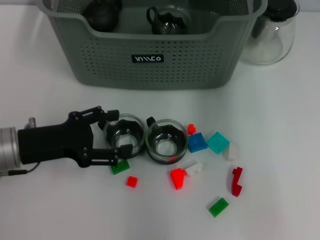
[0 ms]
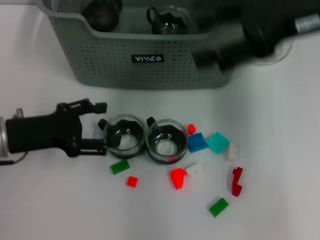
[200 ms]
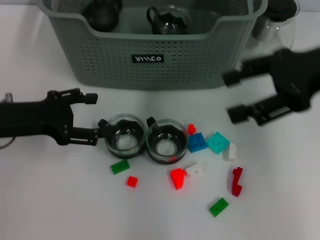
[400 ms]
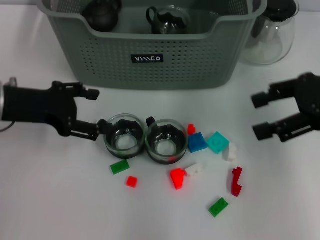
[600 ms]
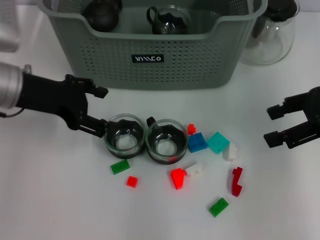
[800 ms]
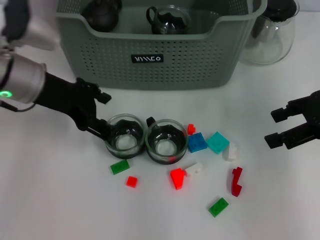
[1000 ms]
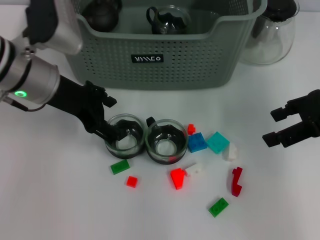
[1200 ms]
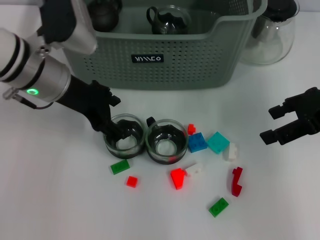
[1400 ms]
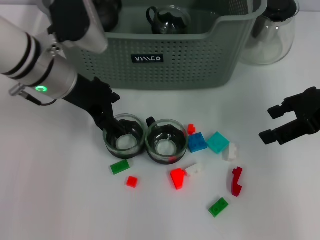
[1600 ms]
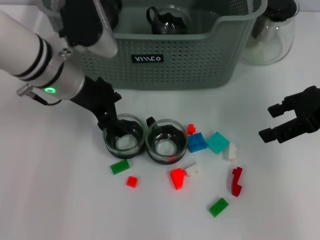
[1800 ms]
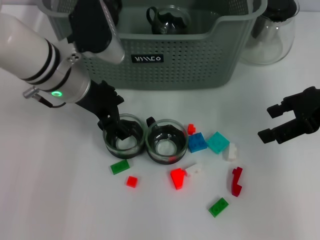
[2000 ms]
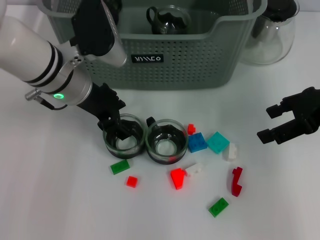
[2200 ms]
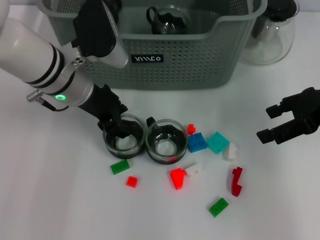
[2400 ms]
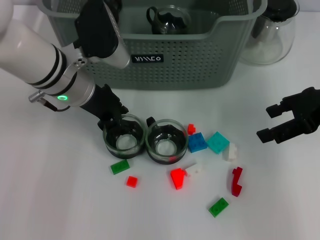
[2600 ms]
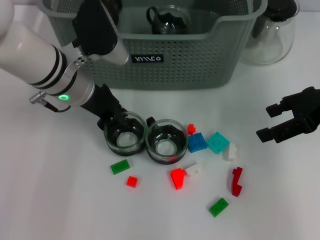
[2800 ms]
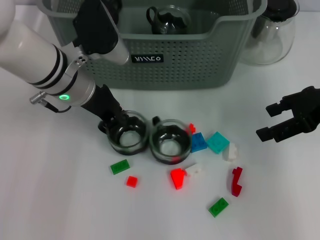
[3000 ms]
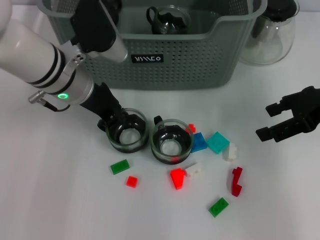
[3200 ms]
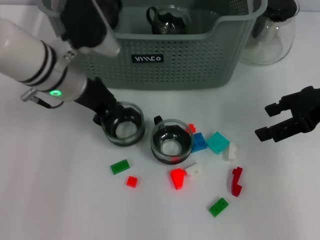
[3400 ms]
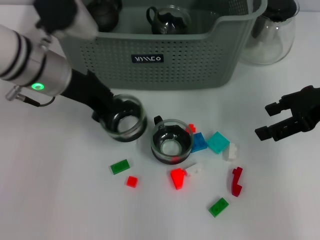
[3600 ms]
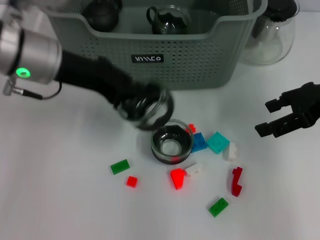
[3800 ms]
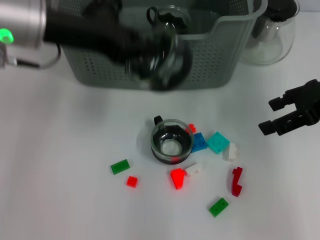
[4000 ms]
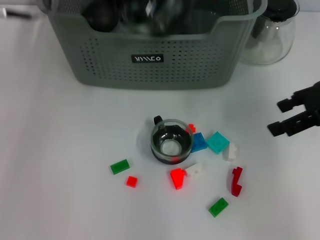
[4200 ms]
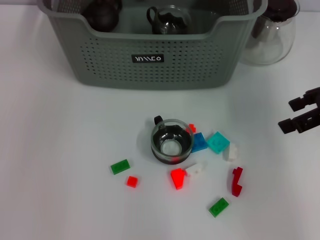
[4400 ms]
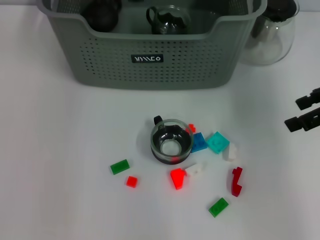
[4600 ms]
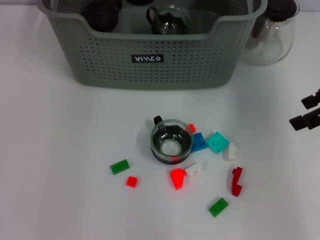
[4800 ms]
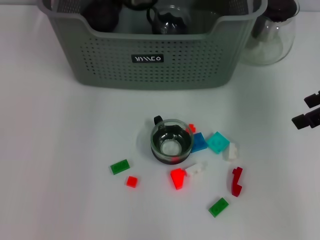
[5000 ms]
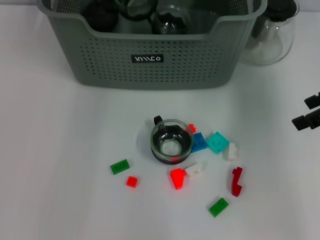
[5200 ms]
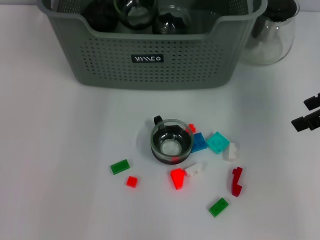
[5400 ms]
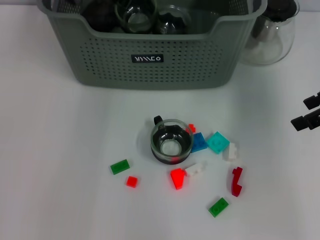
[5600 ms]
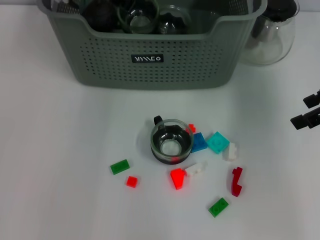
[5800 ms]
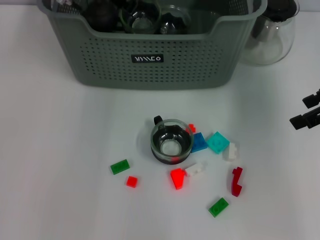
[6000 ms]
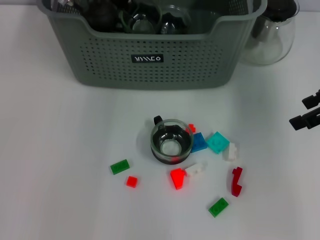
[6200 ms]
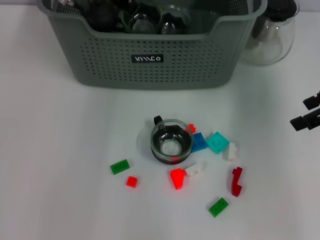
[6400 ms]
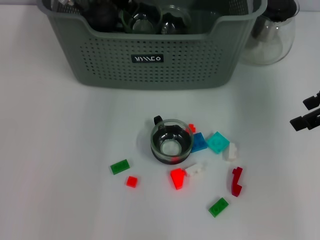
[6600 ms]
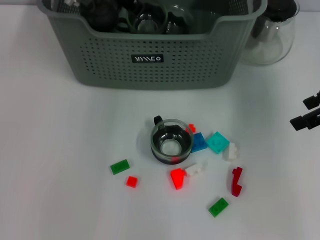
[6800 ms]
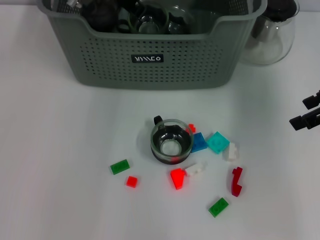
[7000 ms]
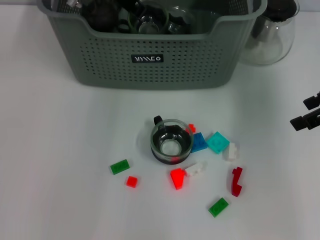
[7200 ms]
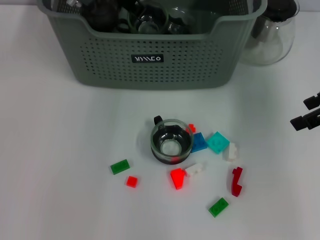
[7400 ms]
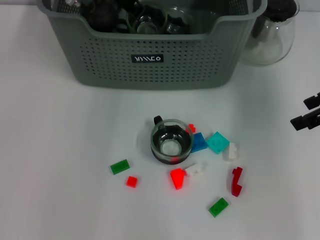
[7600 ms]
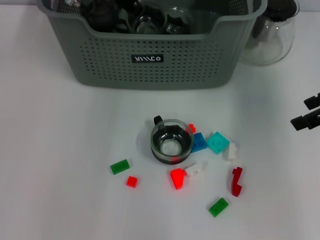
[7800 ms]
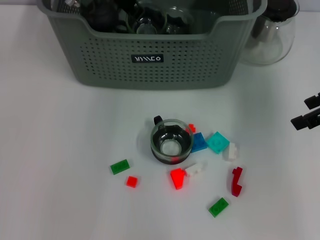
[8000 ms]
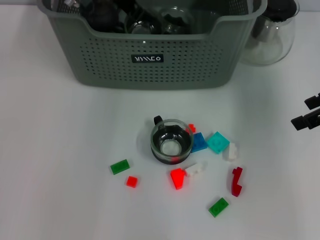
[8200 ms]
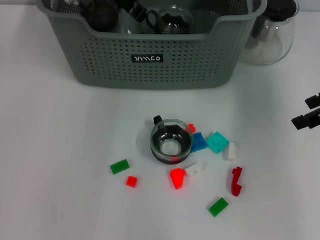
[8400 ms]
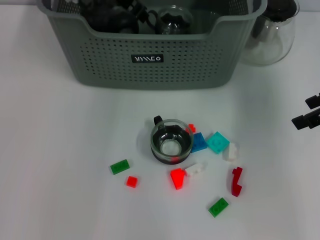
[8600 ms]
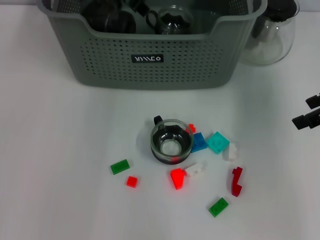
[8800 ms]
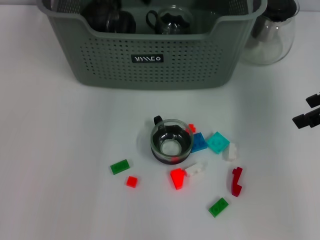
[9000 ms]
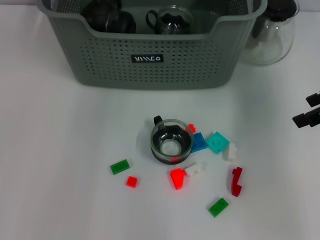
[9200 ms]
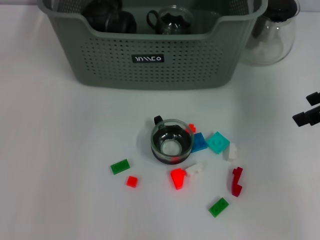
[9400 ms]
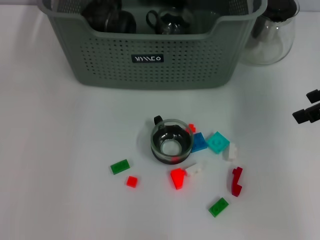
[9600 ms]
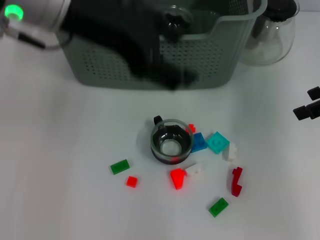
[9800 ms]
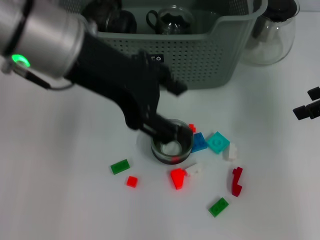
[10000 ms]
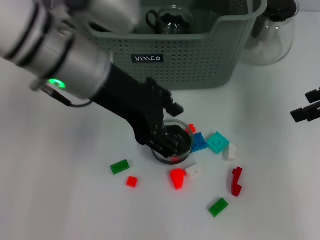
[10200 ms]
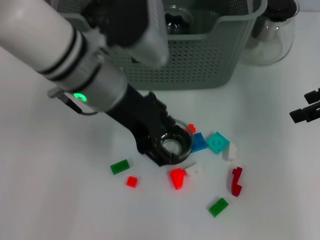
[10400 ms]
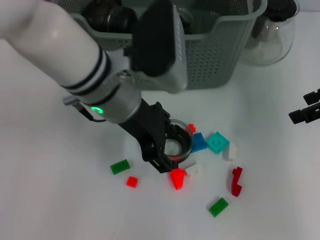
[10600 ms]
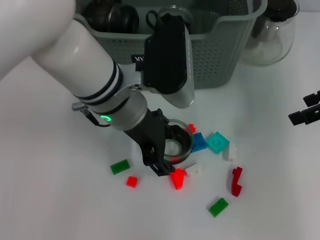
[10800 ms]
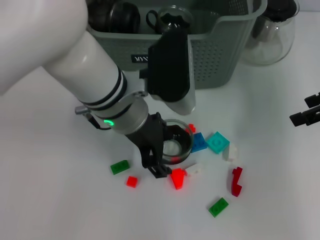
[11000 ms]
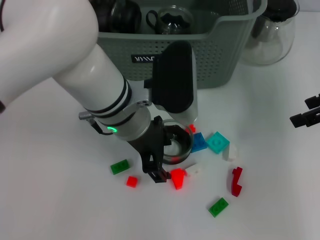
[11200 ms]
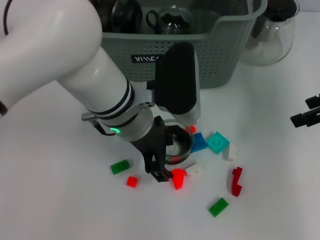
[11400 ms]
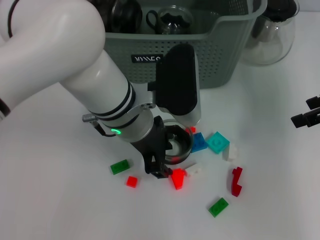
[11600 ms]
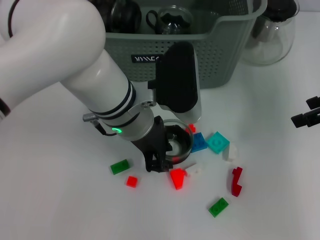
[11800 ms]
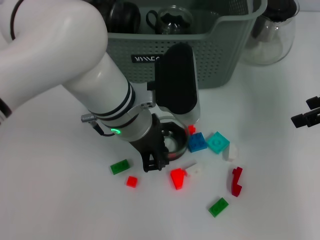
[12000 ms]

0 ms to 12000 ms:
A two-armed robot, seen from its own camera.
Task of the whole recording: pick up the teacup on the table and place it into the storage bin, pick up the block on the table and place it into the storage bin.
Step, 0 ms to 3000 ms: Grasp the cup with left gripper.
Step, 3200 ms to 8400 ms: Place the cup in the storage box with left gripper.
0 ms to 1600 ms: The left gripper travels forward, to the right and upward by approximately 15 cm, while the right gripper moves downward and to the right, approximately 15 cm.
1600 ms to 3000 ms: The left gripper closes its fingers.
3000 ms to 4400 ms: The left gripper goes about 15 cm upward.
4400 ms to 6000 ms: The left gripper heads downward, to the right and forward, covering some 15 cm.
6000 ms to 7600 ms: The grippers make only small movements.
7600 ms to 9000 ms: The left gripper moves upward, approximately 5 cm, and opens its fingers.
9000 ms to 10400 ms: The left gripper heads backward and downward, covering some 15 cm.
10400 ms to 12000 ms: The left gripper travels downward by approximately 5 cm, and closes its fingers.

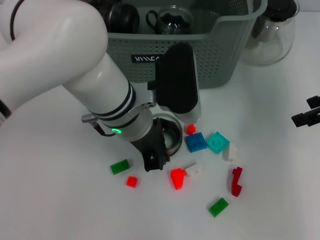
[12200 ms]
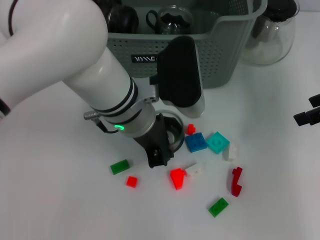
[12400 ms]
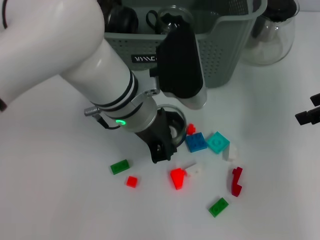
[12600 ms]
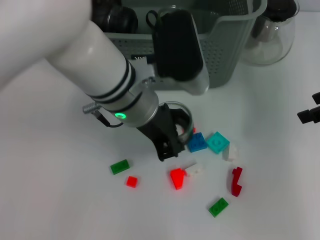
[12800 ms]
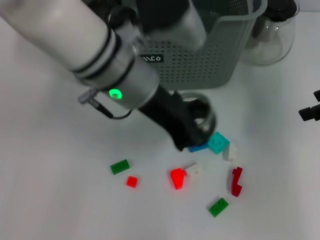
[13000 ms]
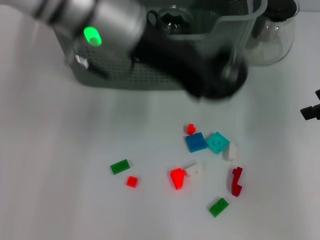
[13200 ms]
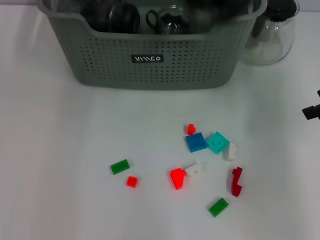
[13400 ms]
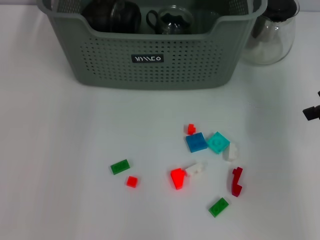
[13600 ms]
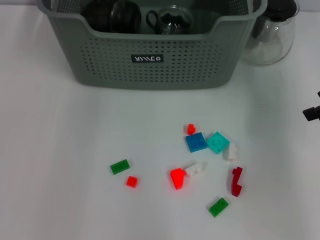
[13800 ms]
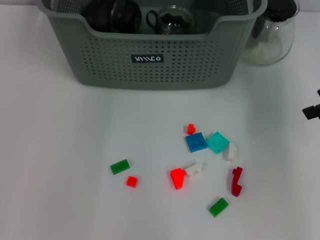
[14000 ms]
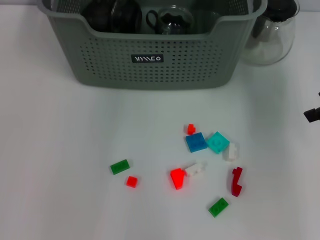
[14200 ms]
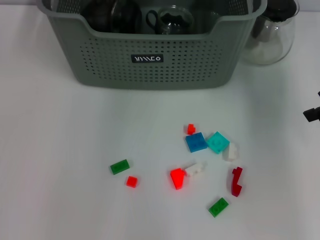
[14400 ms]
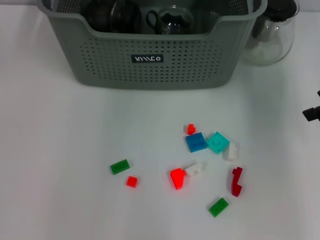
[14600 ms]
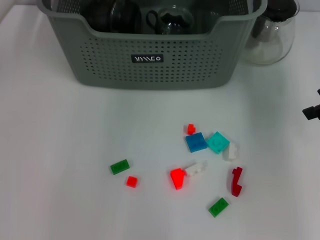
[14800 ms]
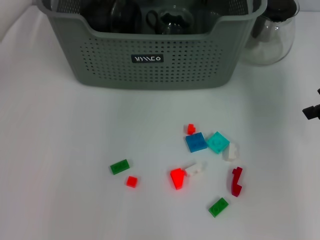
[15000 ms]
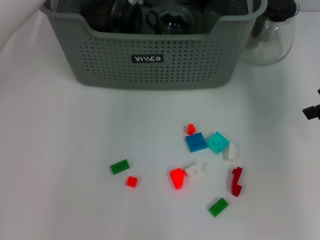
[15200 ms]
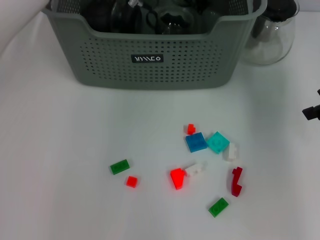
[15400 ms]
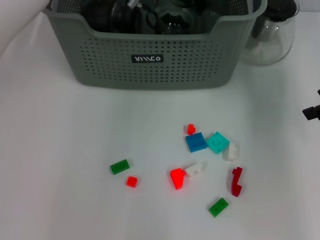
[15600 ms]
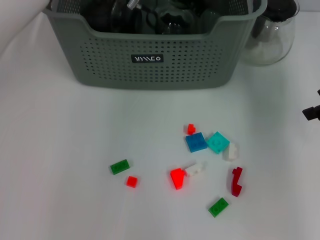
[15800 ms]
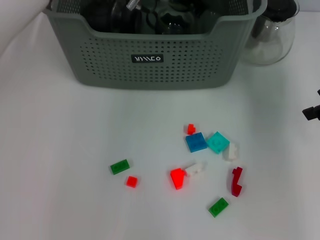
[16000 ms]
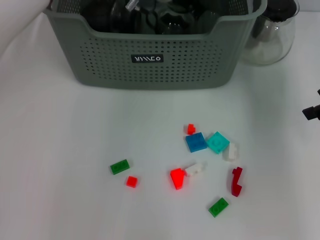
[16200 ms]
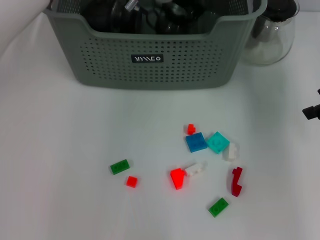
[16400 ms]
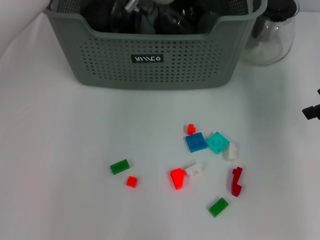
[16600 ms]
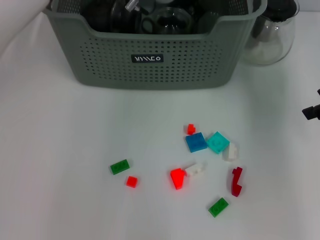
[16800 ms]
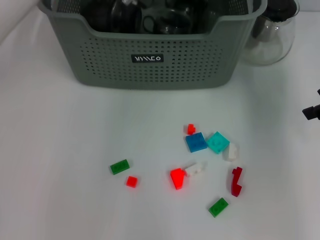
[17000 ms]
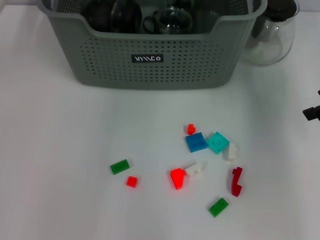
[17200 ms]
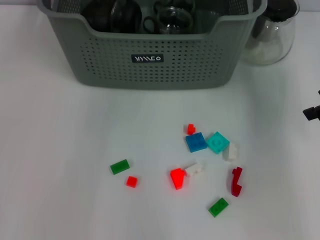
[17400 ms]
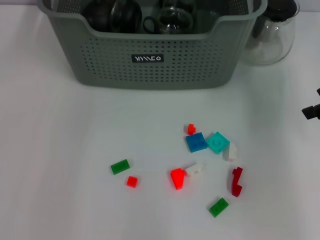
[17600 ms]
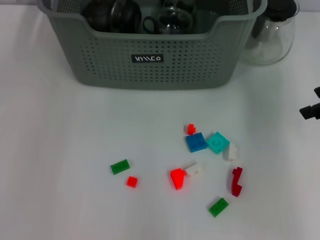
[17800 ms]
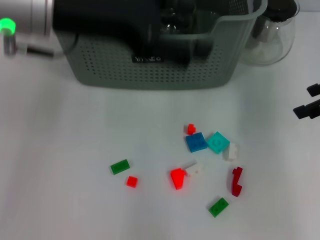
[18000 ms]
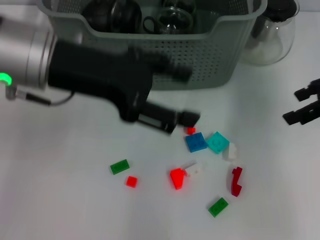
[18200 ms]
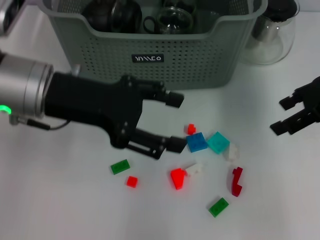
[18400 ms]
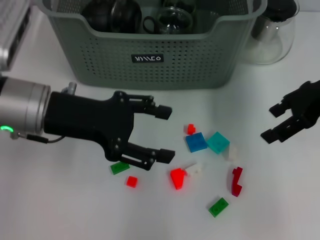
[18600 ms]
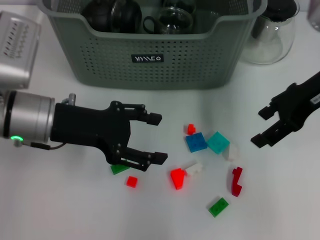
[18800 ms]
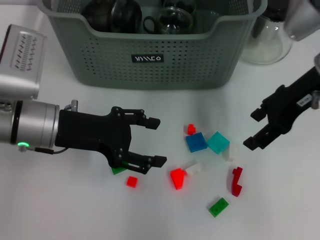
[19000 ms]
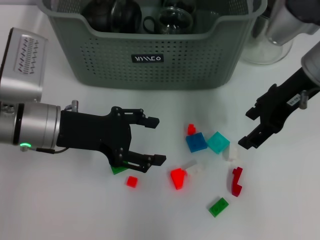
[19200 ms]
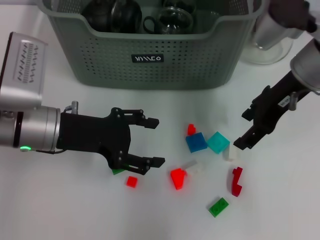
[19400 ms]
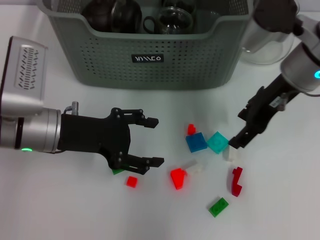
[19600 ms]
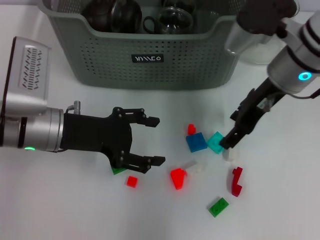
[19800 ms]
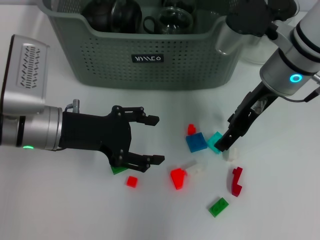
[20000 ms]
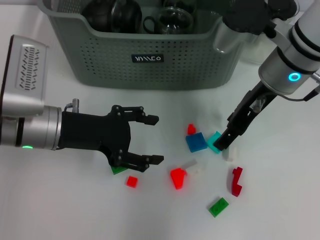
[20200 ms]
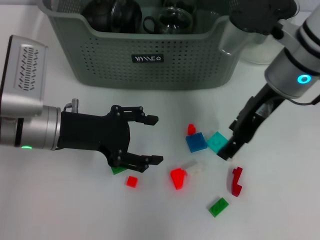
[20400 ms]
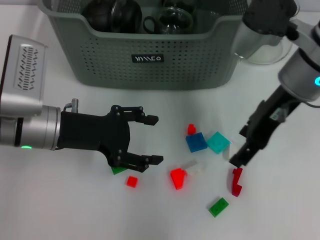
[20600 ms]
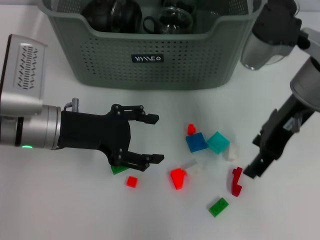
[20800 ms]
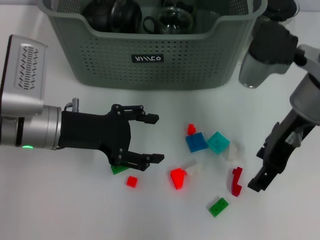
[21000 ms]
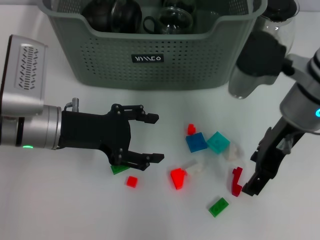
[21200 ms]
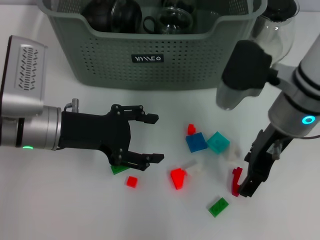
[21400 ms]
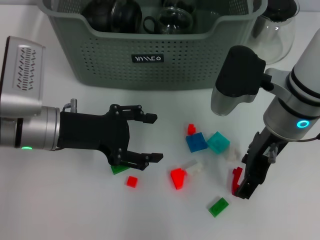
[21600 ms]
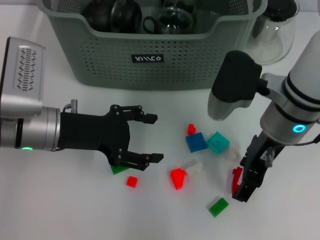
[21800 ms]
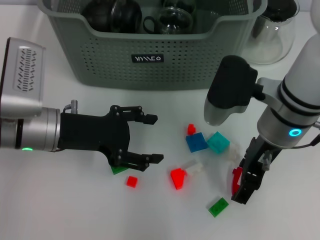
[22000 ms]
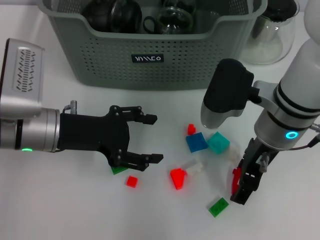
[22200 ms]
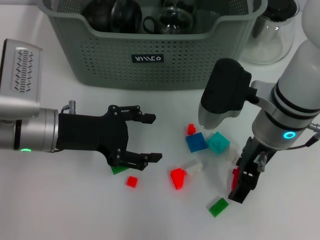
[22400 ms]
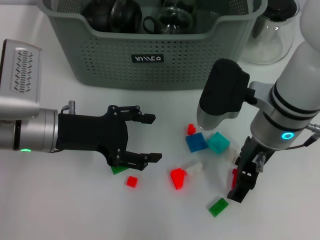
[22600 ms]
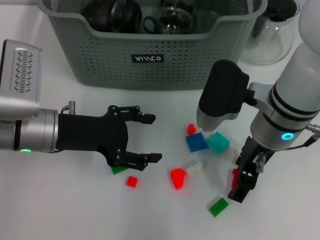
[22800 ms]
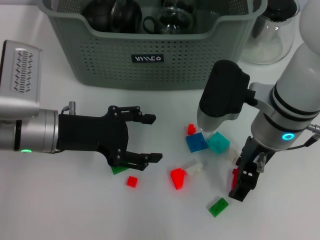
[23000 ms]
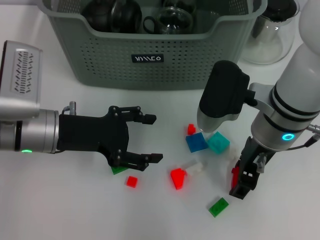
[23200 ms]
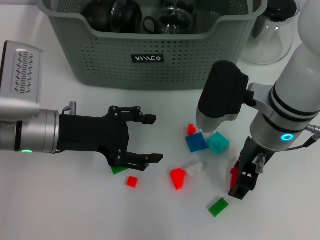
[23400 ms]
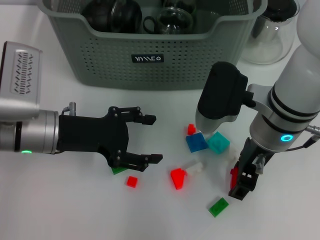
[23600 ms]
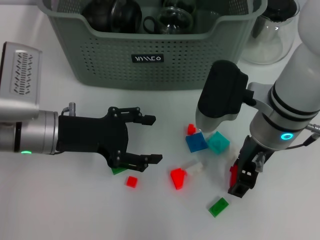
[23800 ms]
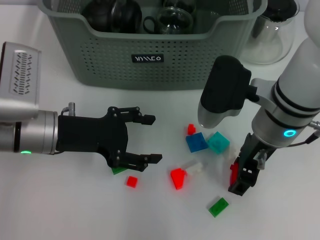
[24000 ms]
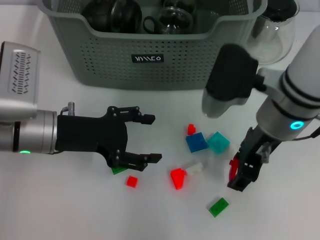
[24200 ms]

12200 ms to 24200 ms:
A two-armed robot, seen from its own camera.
Task of the whole recording: pick up the teacup on the table and place it into the storage bin, pick up the block on the table and place it into the storage bin.
Step, 12400 ms to 16600 ms: Place the cup in the storage box with left gripper.
Step, 16800 ms to 23600 ms: Grasp the red block with right gripper.
12200 ms to 13800 ms: The left gripper travels upward and forward by approximately 25 cm.
13800 ms to 15200 ms: The left gripper travels downward and to the right by about 15 cm.
15200 ms to 16600 ms: Neither gripper changes place.
16600 ms to 18200 ms: The left gripper moves backward and to the left, about 20 cm, and opens its fingers.
18200 ms to 19800 ms: The right gripper heads to the left, covering roughly 15 cm; the left gripper travels downward by roughly 15 cm.
19800 ms to 21200 ms: The right gripper moves backward, about 5 cm.
22600 ms to 24200 ms: The grippers move only a little.
